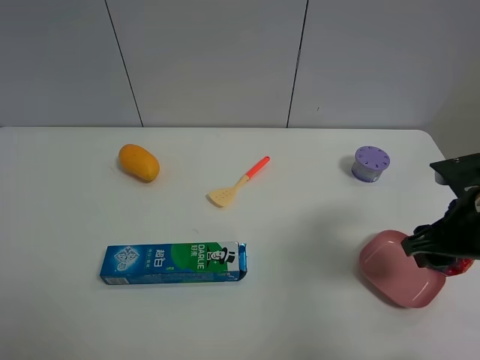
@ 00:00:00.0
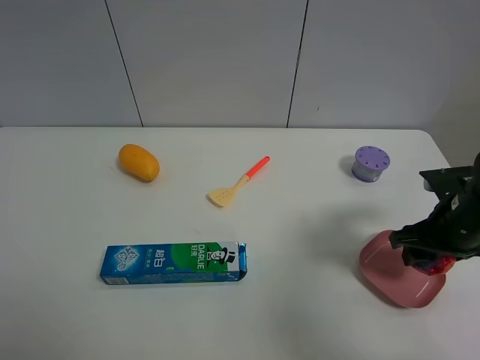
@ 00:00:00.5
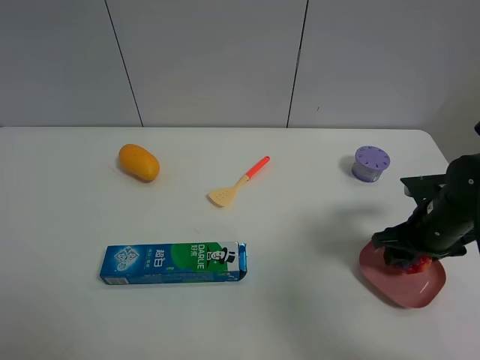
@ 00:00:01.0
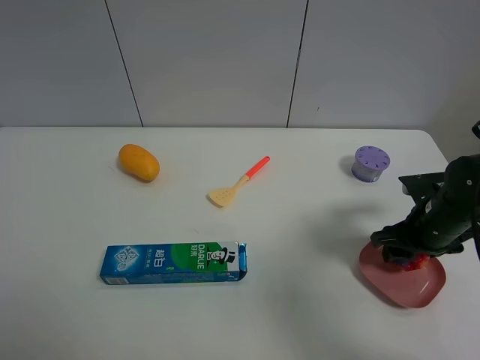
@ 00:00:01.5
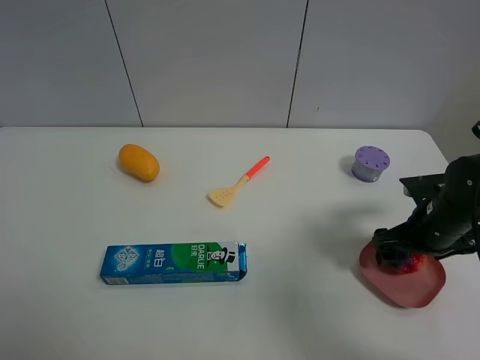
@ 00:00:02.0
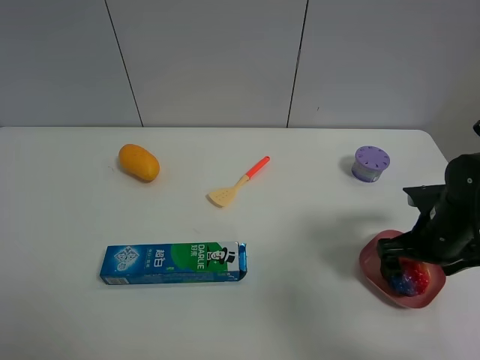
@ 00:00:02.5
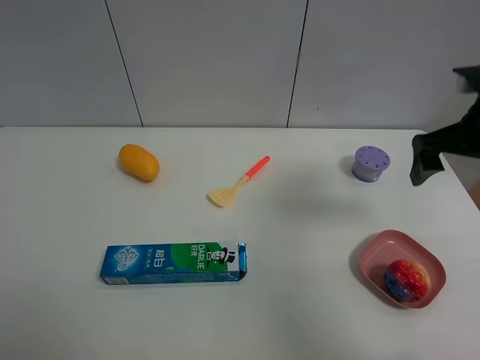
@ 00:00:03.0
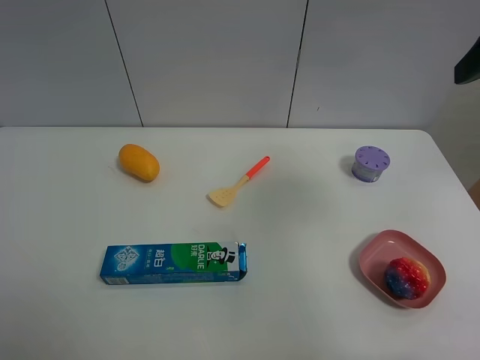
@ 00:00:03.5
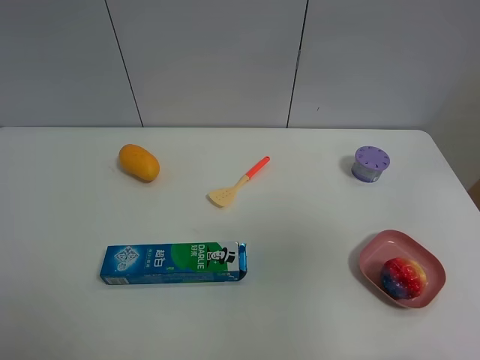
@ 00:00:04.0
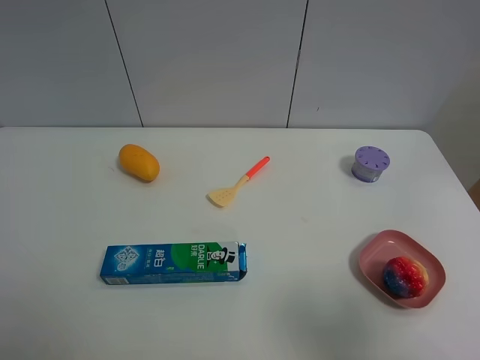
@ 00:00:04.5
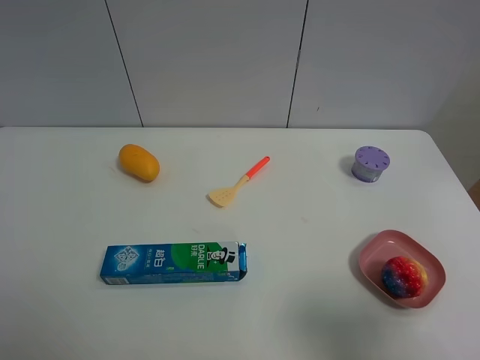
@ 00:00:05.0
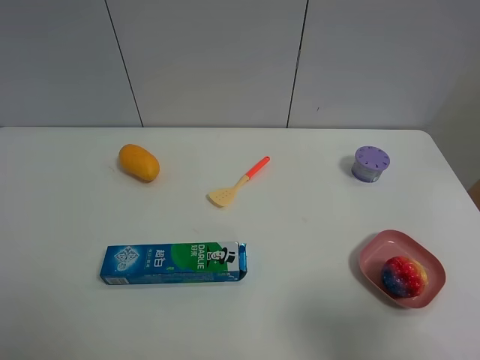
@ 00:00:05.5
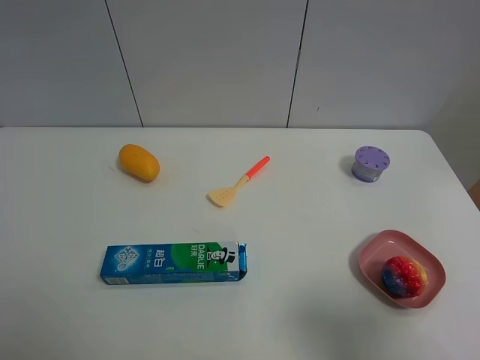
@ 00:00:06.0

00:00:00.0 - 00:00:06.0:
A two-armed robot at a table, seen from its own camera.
Task of the whole recording: the gripper move the object.
Step, 00:00:00.0 - 00:00:02.0: Place the colorful ball into the pink plate with the right gripper.
00:00:00.0 - 00:00:02.0: The right gripper shifts approximately 10 cm downward and forward, and opens its fingers.
00:00:02.0 - 00:00:04.0: The right gripper goes roughly 35 cm upward and backward.
00:00:04.0 - 00:00:06.0: The right gripper heads downward, covering roughly 15 cm.

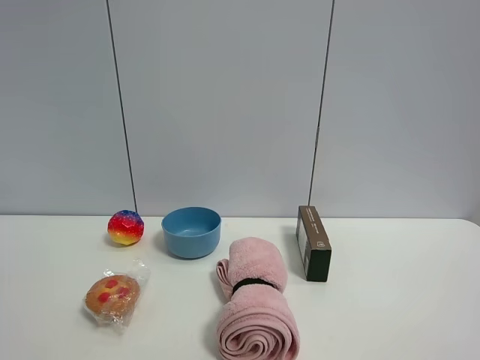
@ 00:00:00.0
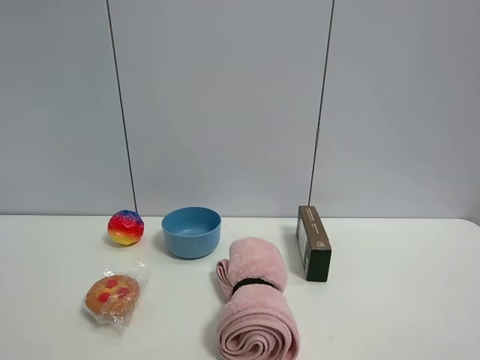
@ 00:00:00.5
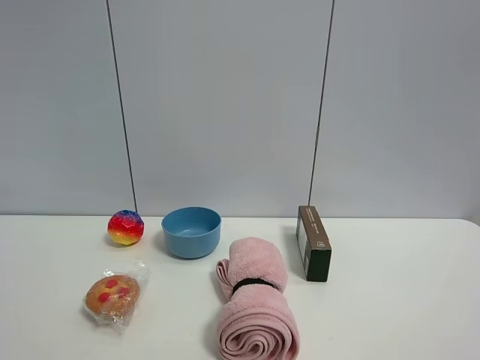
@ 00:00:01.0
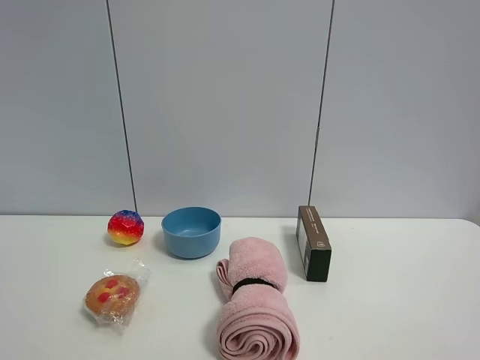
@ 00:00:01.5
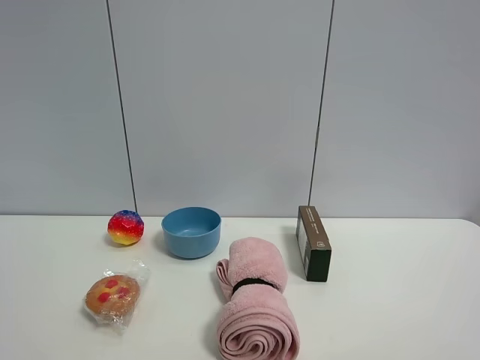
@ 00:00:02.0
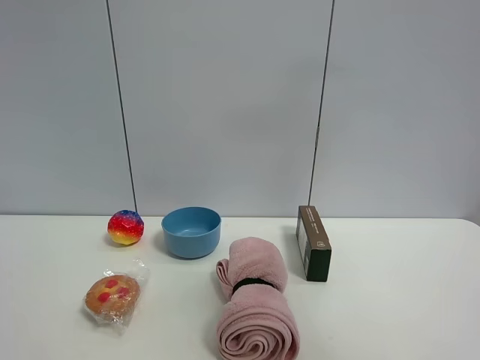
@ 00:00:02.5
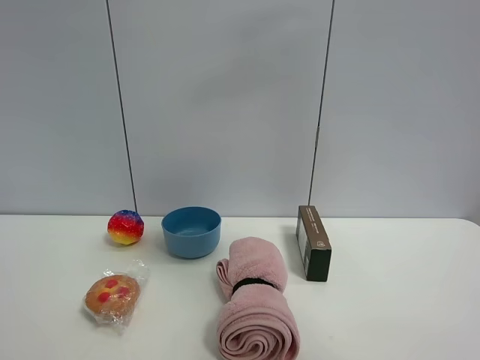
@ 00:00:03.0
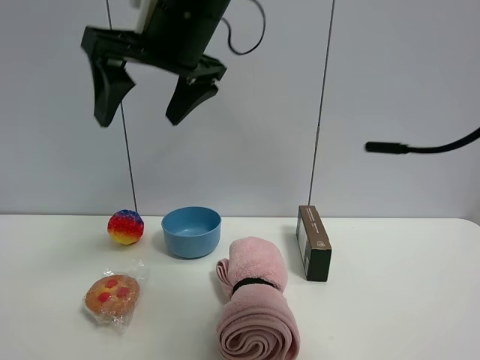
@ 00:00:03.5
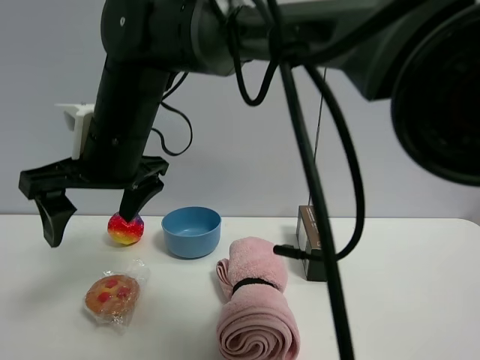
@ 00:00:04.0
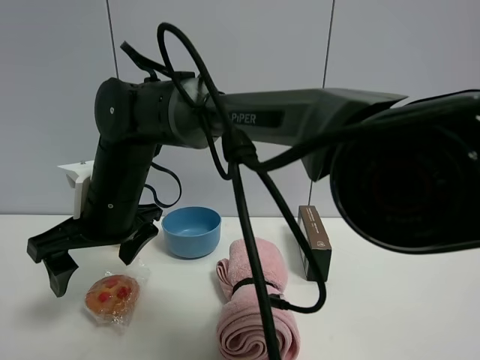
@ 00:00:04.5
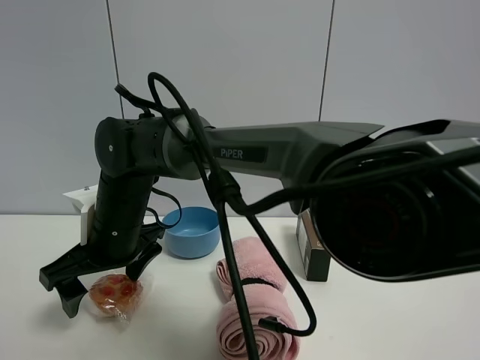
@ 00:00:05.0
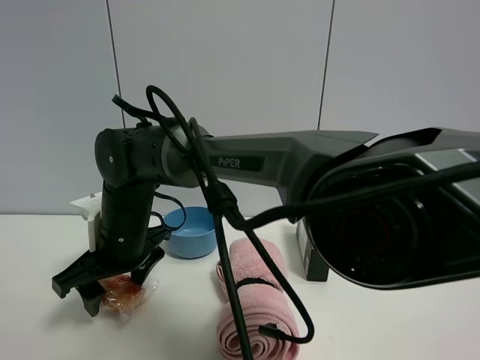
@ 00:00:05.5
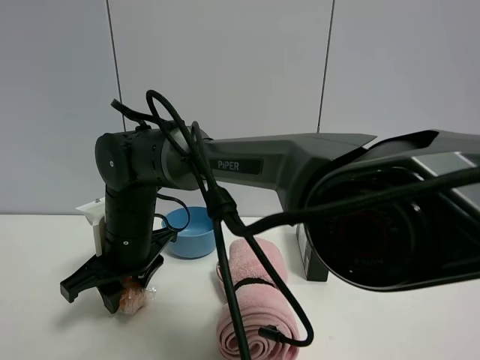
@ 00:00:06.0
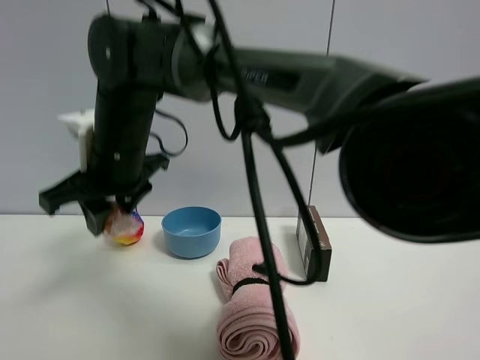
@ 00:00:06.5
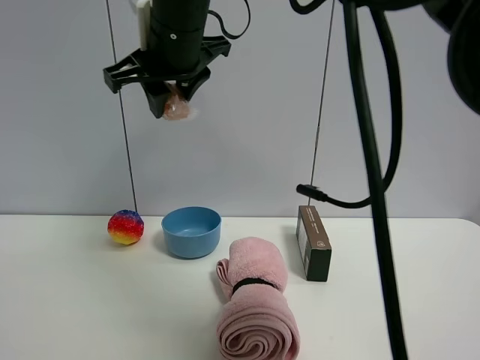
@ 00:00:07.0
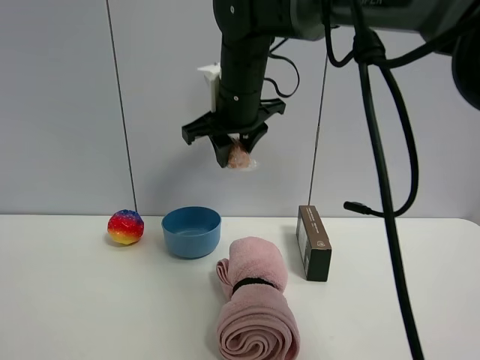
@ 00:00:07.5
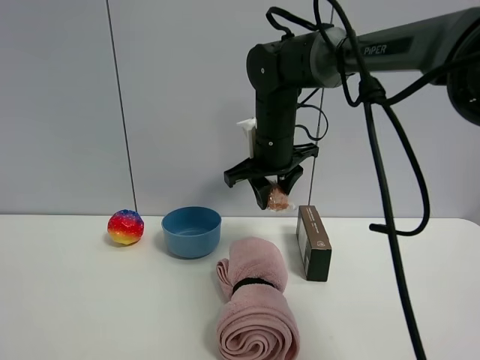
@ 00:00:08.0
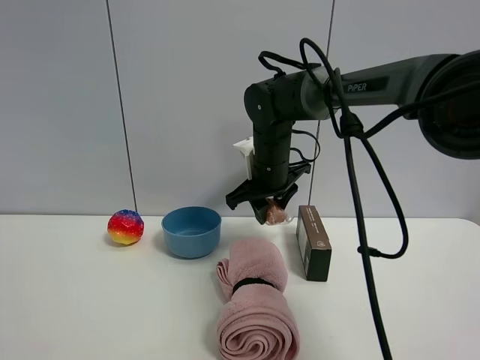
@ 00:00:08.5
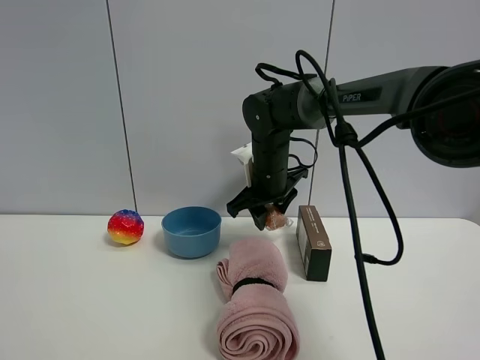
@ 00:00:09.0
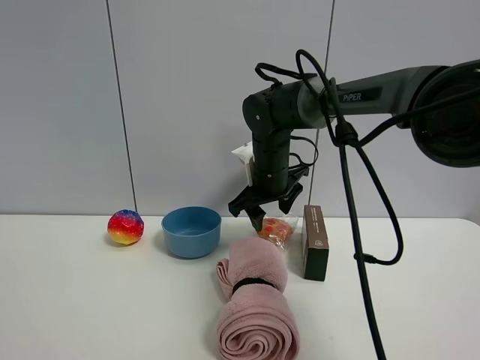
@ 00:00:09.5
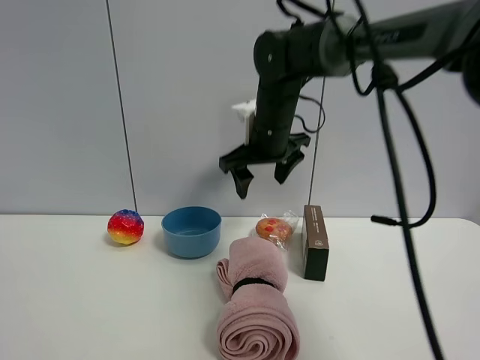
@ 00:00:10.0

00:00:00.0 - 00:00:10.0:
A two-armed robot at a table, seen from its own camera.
Task of the whole recording: the gripper move the object.
Step, 00:00:00.0 - 00:00:06.0: Grasp the egg tart with the right gripper.
Step, 00:00:06.5 - 00:00:09.0: Place the egg tart on the table with the right gripper.
00:00:02.0 - 00:00:04.0: The right gripper shifts roughly 50 cm to the left and forward.
00:00:04.0 - 00:00:06.0: The right gripper is displaced downward by roughly 10 cm, and closes up.
00:00:06.0 - 00:00:08.0: The right gripper is displaced to the right, forward and upward by some 25 cm.
00:00:08.0 - 00:00:10.0: The right gripper opens.

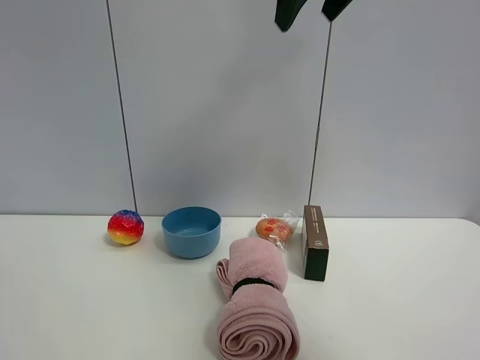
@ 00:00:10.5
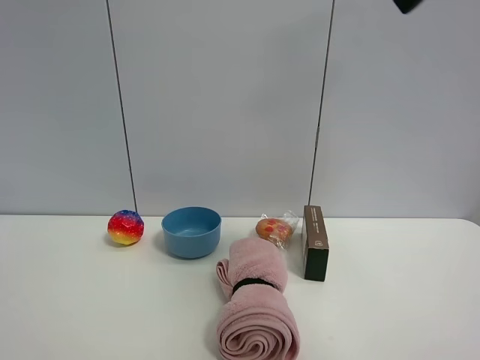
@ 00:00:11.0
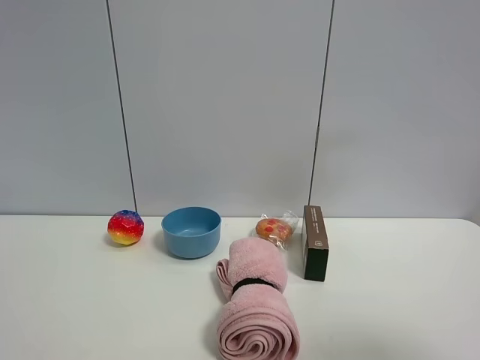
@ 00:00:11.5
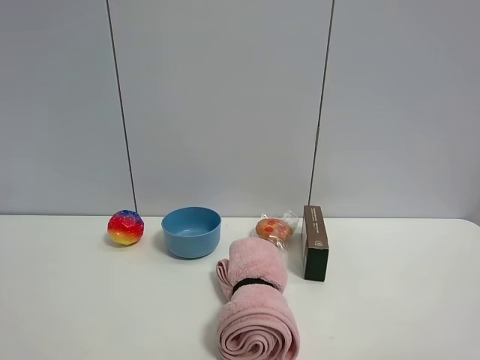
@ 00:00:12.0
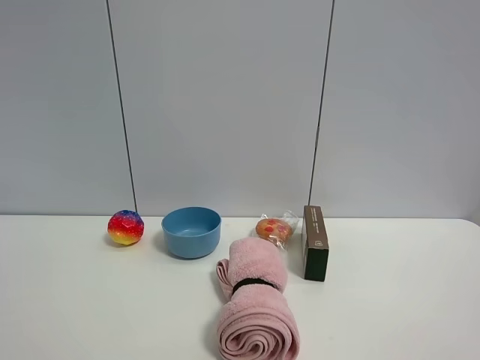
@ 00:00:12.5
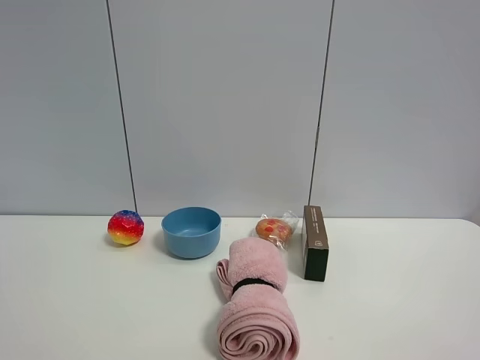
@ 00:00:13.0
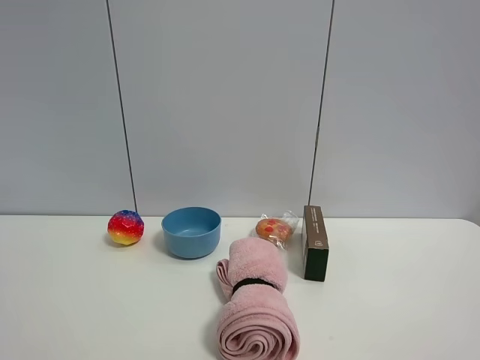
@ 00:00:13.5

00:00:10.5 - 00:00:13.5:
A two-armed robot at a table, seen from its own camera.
Task of the whole recording: the gripper move the object.
00:00:10.5 - 00:00:12.0: The right gripper goes approximately 40 cm backward, to the right and downward.
